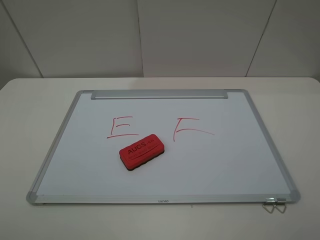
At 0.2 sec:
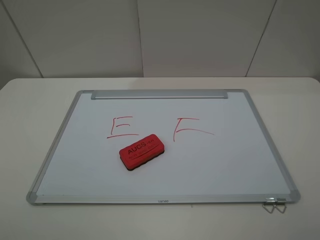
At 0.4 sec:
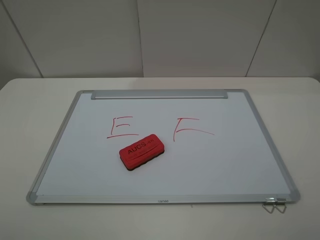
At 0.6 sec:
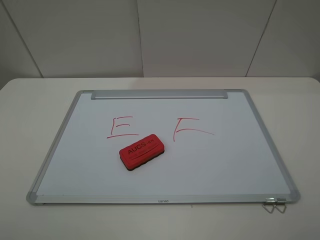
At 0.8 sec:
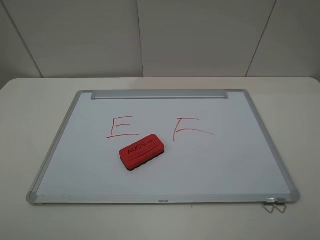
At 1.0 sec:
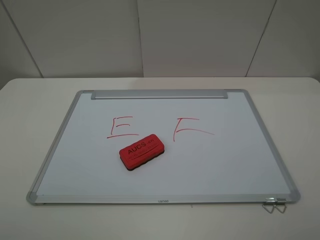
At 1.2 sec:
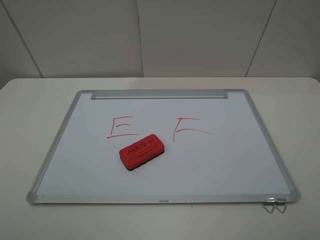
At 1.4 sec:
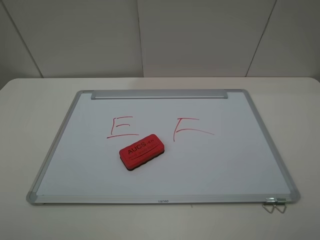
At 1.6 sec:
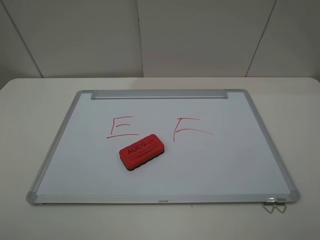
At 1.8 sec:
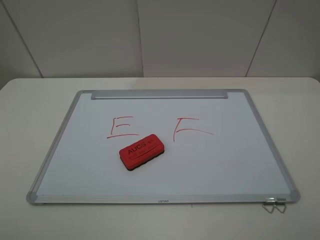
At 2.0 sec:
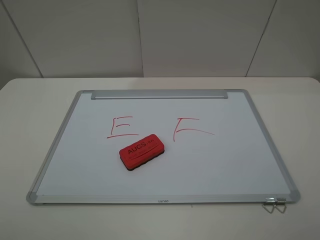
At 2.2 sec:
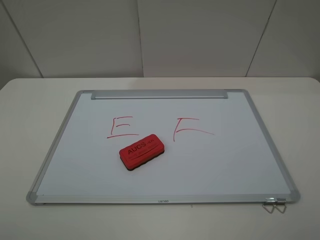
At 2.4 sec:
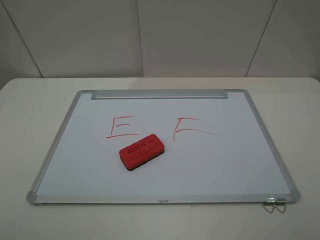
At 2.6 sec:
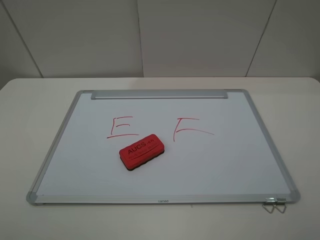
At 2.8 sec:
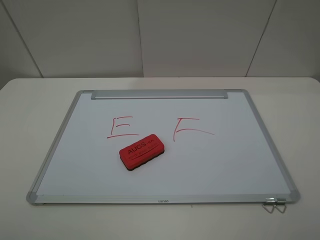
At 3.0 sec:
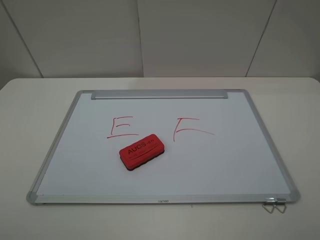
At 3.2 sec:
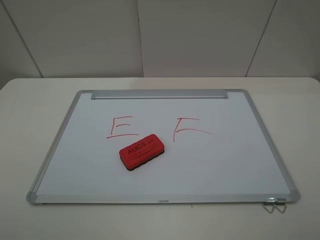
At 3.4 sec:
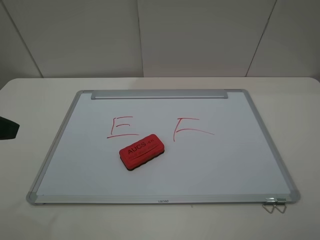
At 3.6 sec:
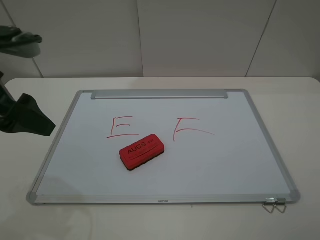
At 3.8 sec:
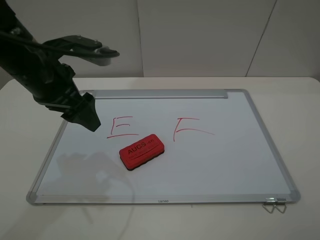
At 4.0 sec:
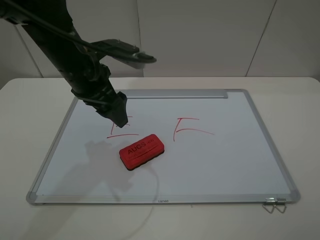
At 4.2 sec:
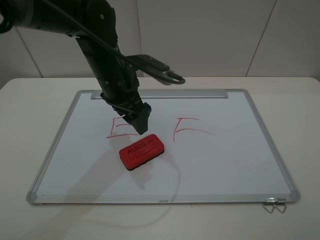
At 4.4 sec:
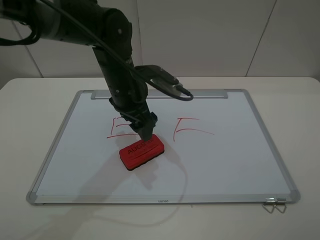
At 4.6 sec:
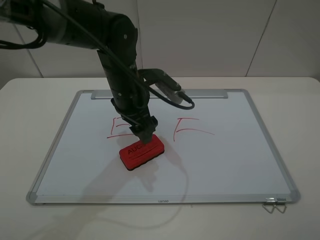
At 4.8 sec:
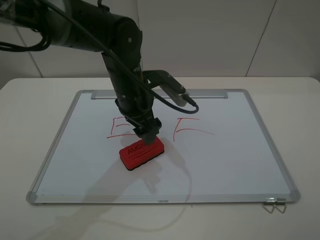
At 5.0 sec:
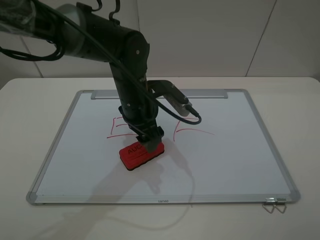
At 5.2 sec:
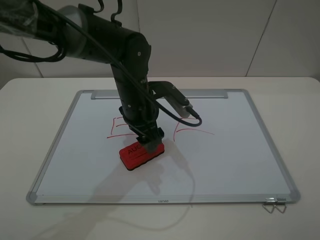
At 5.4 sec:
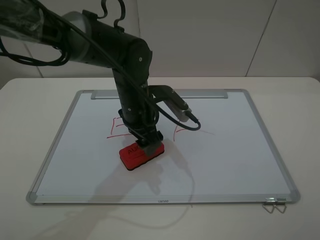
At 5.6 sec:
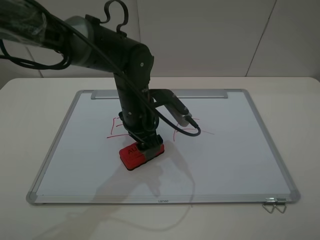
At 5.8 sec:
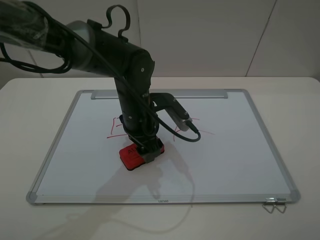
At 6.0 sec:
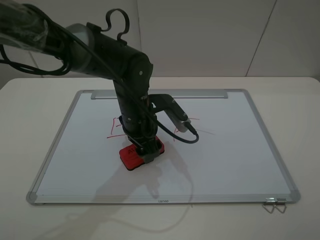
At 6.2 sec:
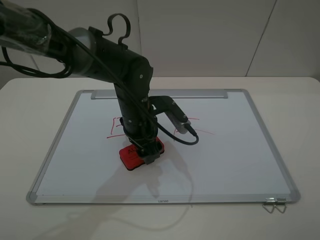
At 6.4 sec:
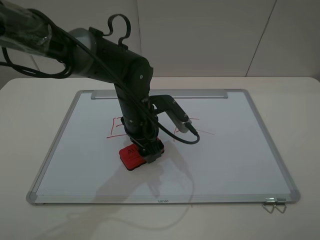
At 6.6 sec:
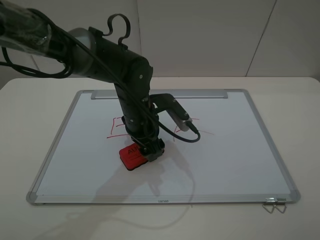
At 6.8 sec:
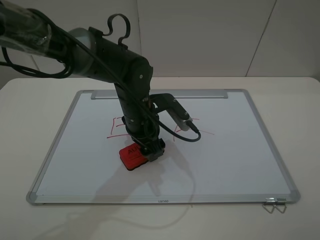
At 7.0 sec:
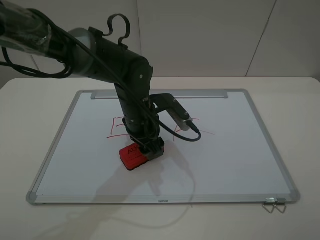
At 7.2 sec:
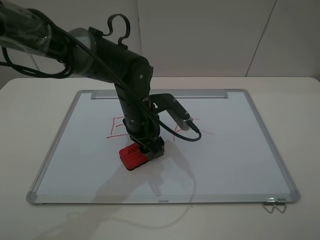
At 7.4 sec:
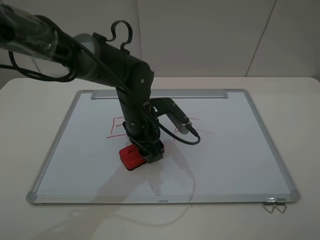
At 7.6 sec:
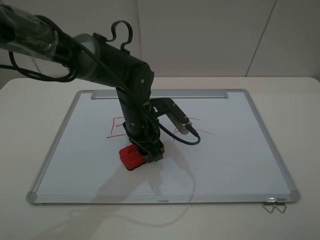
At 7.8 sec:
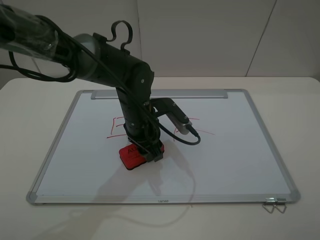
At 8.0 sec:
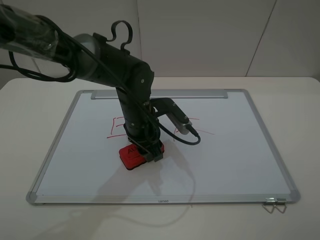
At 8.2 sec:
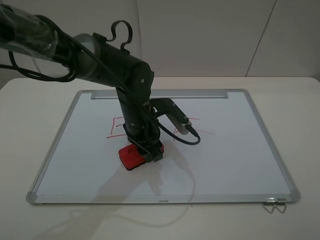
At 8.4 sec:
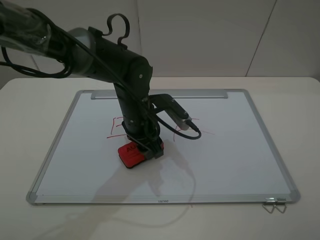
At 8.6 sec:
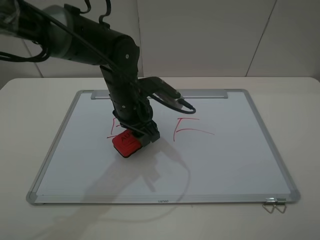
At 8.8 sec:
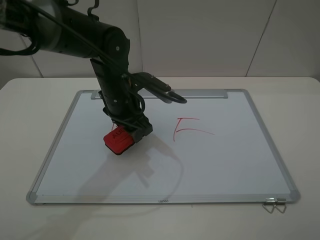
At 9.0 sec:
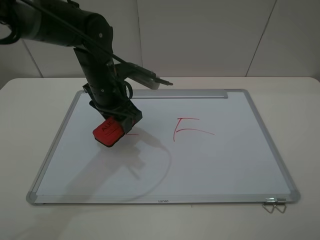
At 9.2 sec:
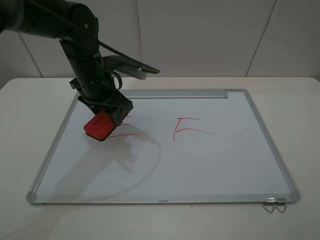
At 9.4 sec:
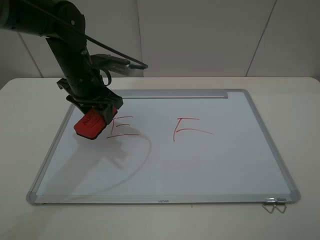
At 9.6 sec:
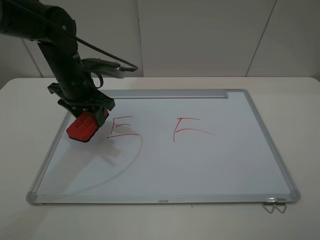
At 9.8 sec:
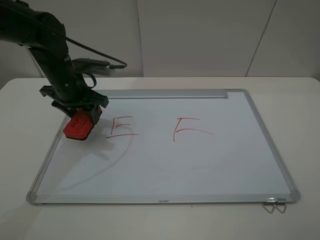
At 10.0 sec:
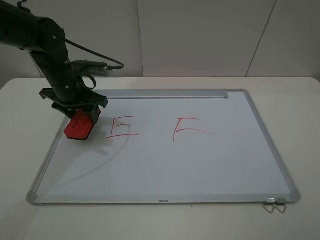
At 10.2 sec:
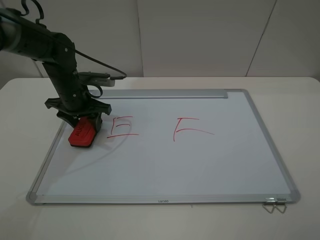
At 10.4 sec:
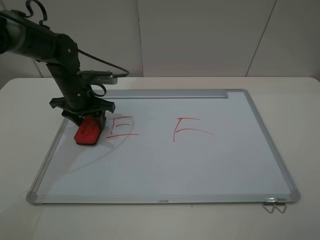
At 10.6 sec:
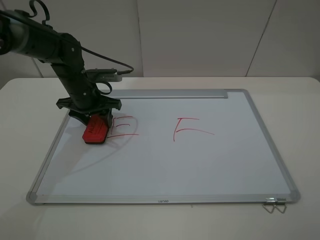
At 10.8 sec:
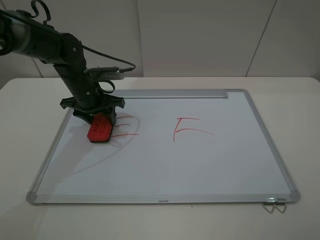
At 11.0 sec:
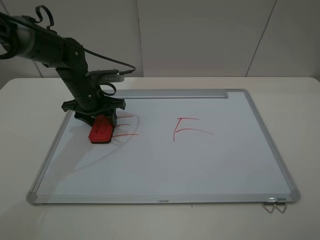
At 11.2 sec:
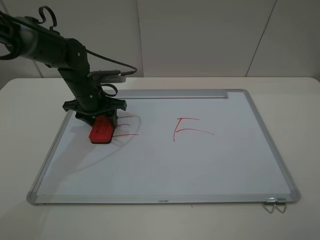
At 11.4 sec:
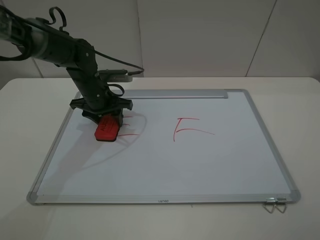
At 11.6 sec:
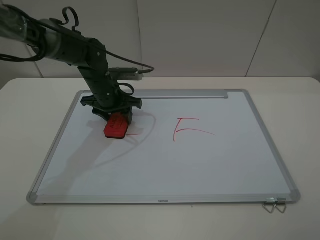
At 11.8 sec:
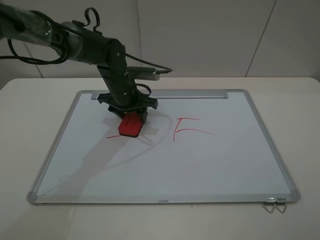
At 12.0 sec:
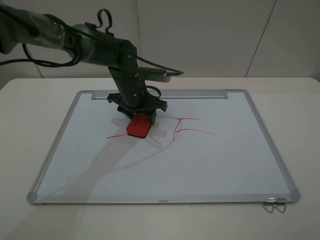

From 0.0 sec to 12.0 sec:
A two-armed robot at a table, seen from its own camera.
Step, from 0.0 sec to 7.6 sec: Grasp the eraser with the left gripper.
From 0.0 sec to 1.6 sec: Neither gripper changes place.
From 3.0 sec to 4.4 sec: The left gripper heads forward and to the right, covering about 40 cm.
From 4.4 sec to 6.0 sec: The left gripper ends up approximately 5 cm from where it was.
From 6.0 sec to 7.6 sec: The left gripper closes.
From 7.6 sec to 9.0 sec: The left gripper is displaced to the left and upward by approximately 10 cm.
From 9.0 sec to 10.4 sec: The left gripper heads to the left and downward, covering approximately 10 cm.
From 10.4 sec to 12.0 sec: The left gripper heads to the right, covering roughly 15 cm.

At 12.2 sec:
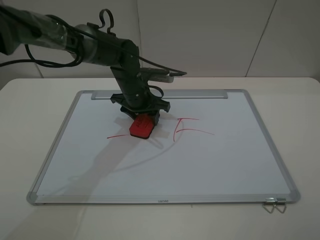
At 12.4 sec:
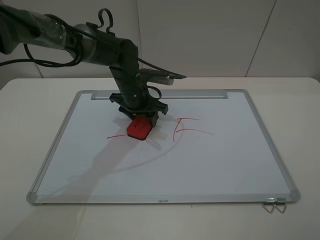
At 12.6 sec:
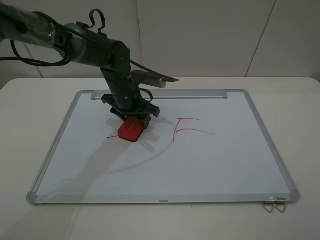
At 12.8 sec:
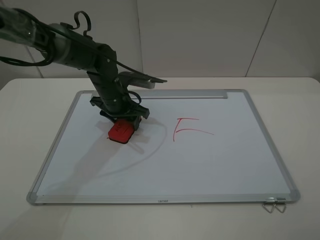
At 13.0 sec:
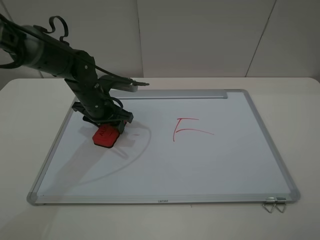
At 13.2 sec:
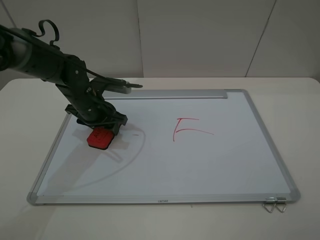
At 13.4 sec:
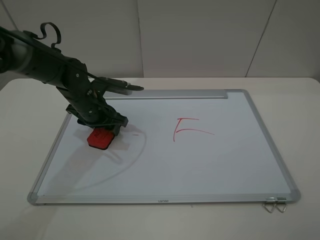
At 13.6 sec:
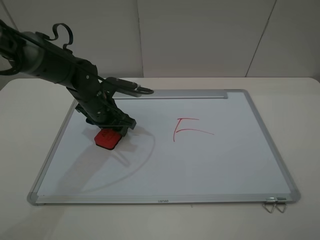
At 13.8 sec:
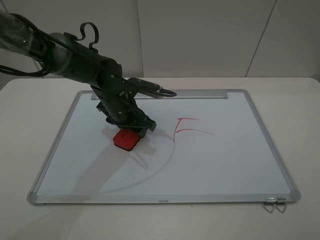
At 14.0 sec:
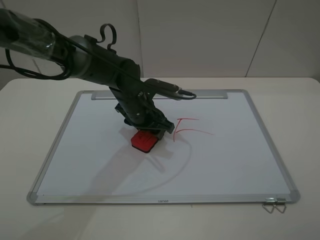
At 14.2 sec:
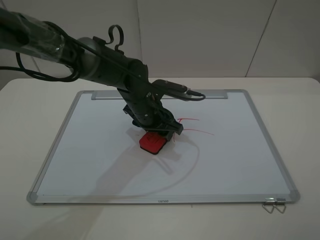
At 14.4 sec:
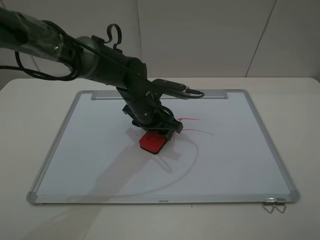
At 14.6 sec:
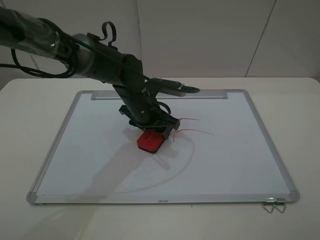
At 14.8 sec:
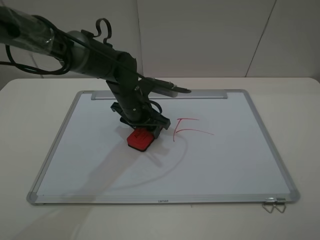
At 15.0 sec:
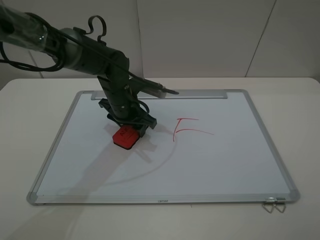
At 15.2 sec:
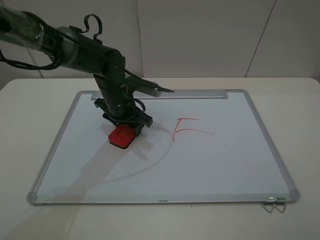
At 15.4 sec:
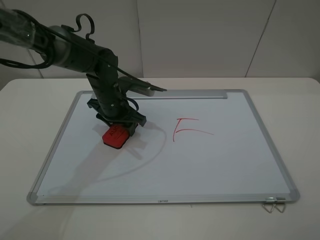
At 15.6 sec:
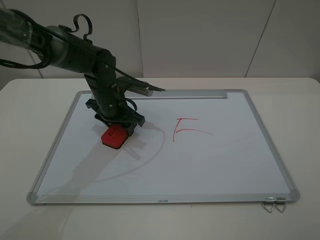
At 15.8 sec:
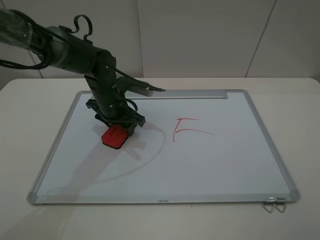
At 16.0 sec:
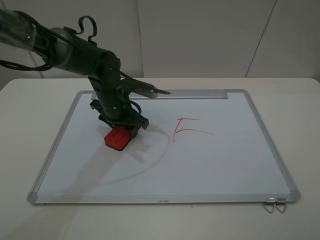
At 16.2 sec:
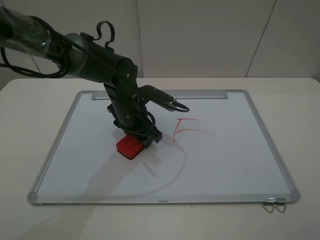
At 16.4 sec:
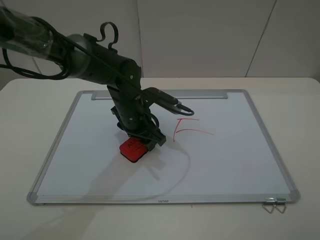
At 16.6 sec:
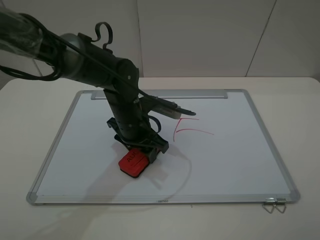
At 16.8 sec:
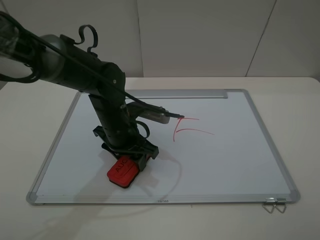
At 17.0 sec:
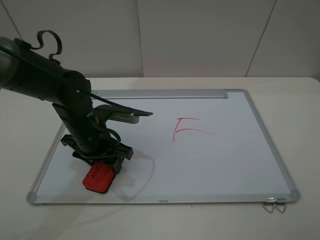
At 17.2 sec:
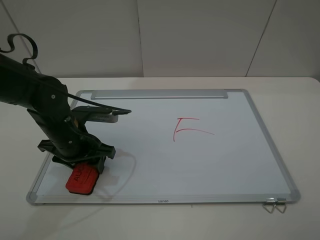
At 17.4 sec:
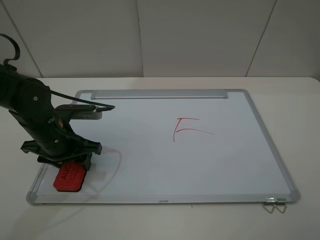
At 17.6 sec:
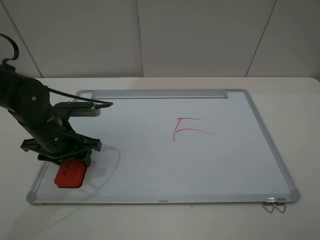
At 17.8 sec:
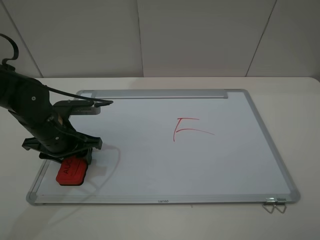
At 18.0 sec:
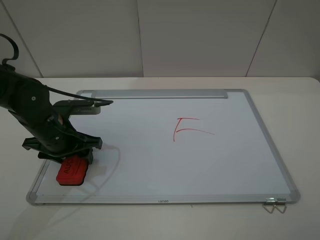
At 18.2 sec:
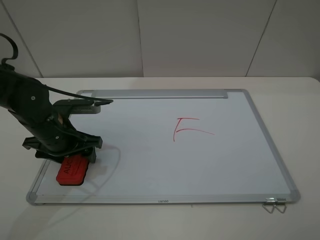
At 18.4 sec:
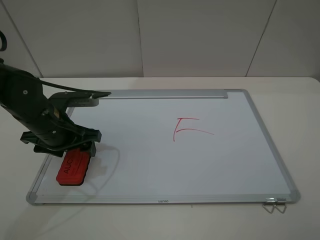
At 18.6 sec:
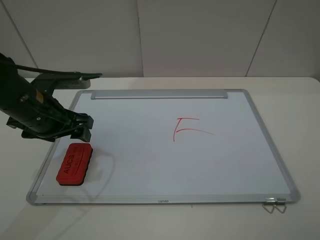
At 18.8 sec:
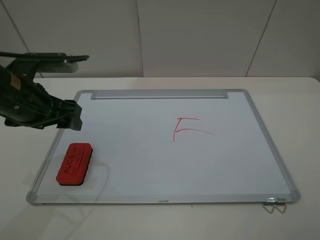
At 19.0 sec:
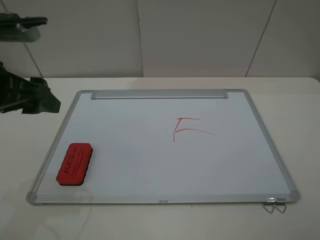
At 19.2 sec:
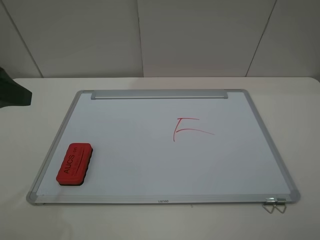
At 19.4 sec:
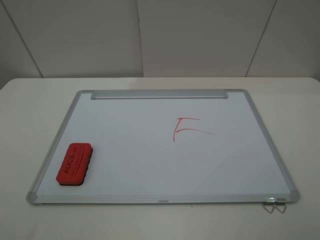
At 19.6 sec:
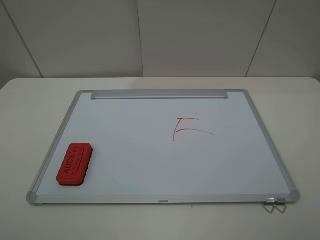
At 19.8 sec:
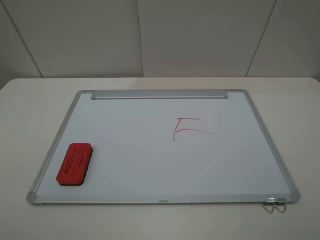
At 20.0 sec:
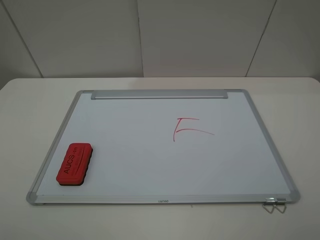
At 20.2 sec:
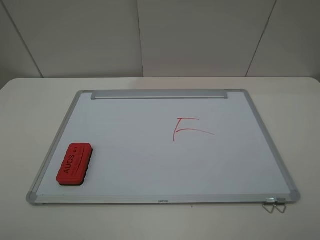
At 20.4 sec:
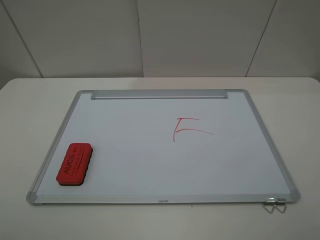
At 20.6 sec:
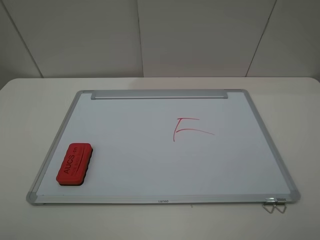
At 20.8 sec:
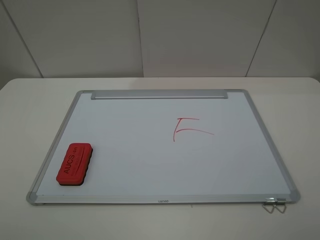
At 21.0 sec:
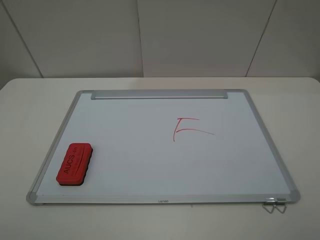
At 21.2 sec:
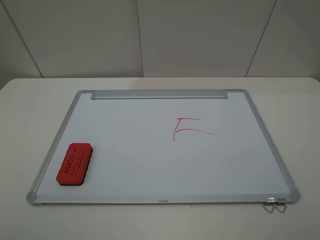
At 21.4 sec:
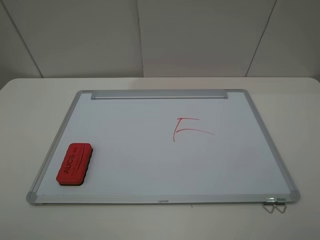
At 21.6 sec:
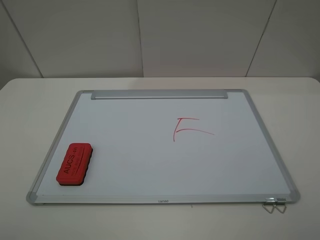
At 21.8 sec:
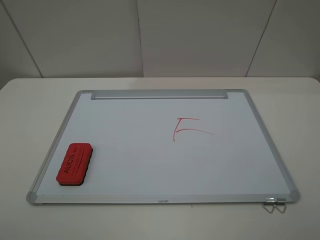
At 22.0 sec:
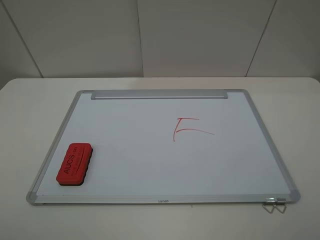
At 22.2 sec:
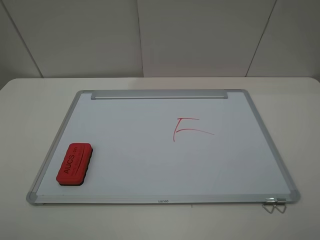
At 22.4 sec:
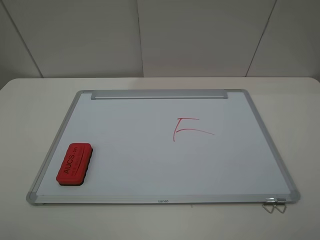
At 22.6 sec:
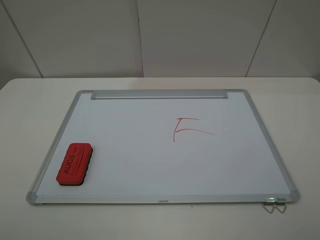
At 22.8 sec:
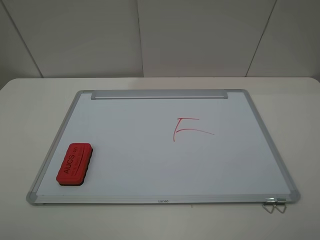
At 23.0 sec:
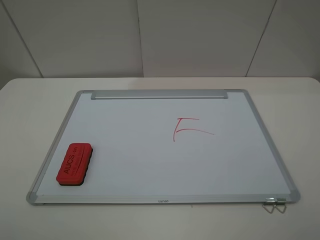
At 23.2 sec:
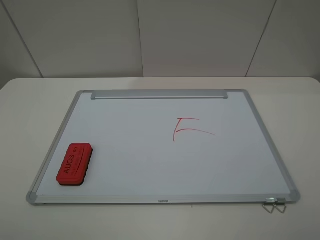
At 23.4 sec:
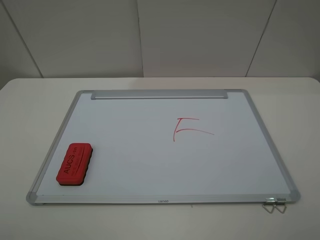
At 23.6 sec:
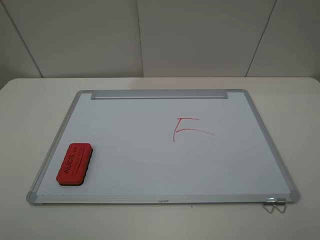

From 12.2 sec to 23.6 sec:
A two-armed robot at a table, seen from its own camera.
Step, from 12.2 sec to 16.8 sec: Grasp the eraser and wipe the blackboard with the left gripper.
Step, from 17.0 sec to 18.6 sec: Place the eraser with the left gripper.
From 12.2 sec to 13.6 sec: The left gripper is displaced to the left and backward by roughly 10 cm.
From 15.0 sec to 16.4 sec: The left gripper moves about 5 cm.
From 16.4 sec to 17.8 sec: The left gripper goes about 15 cm to the left.
From 17.8 sec to 19.4 sec: The left gripper moves upward and backward, about 30 cm, and opens.
From 22.2 sec to 23.6 sec: Both grippers stay put.
